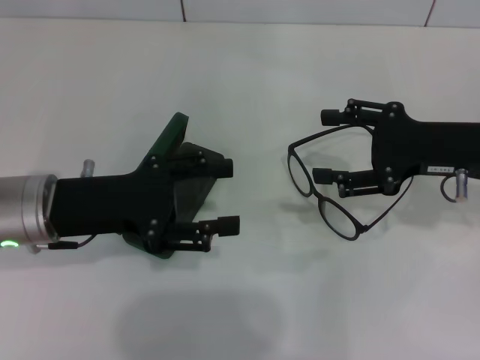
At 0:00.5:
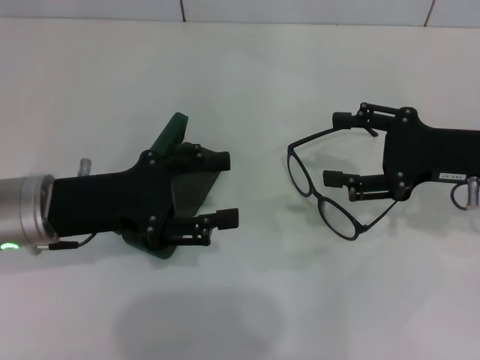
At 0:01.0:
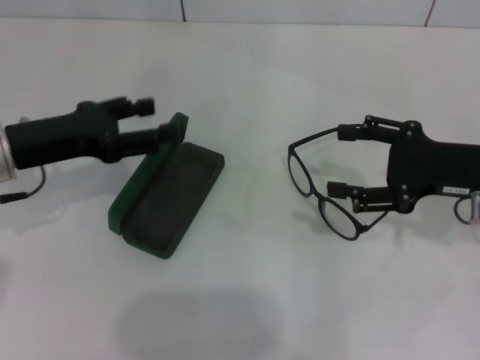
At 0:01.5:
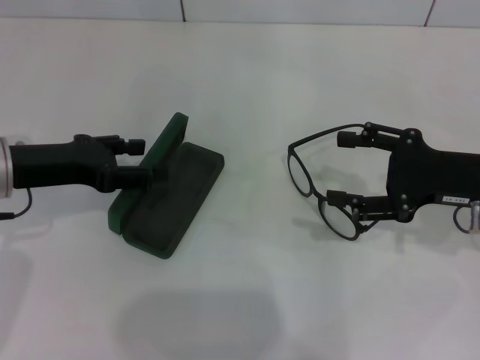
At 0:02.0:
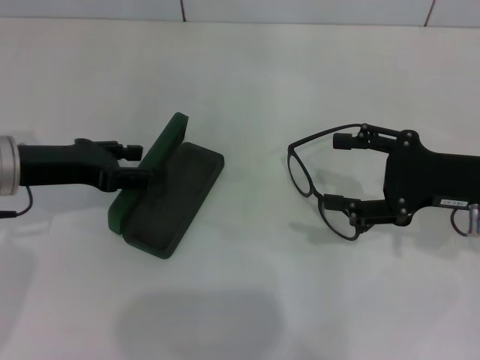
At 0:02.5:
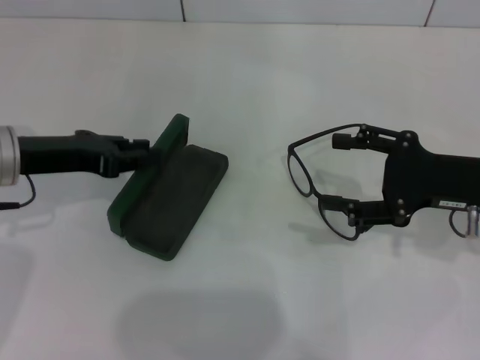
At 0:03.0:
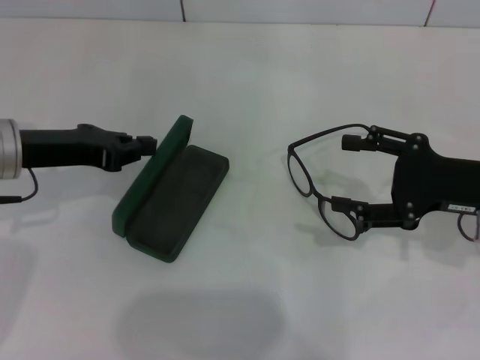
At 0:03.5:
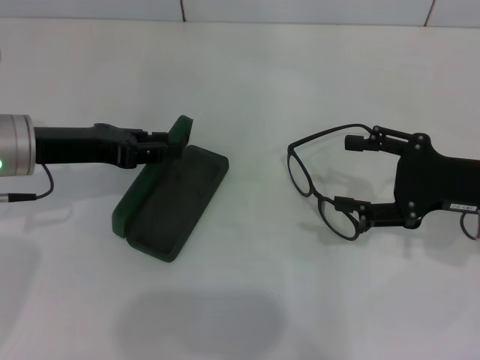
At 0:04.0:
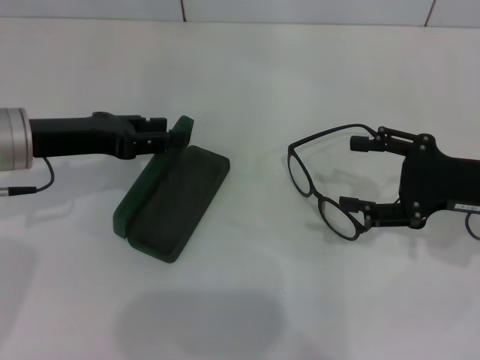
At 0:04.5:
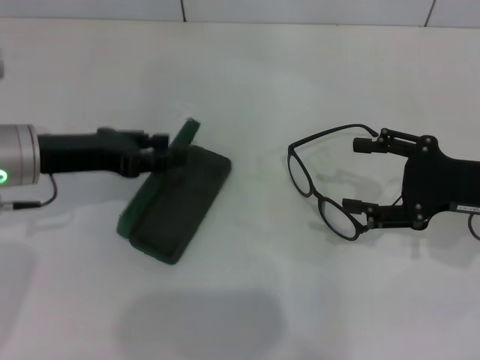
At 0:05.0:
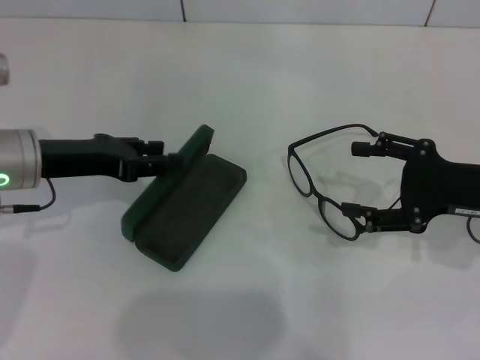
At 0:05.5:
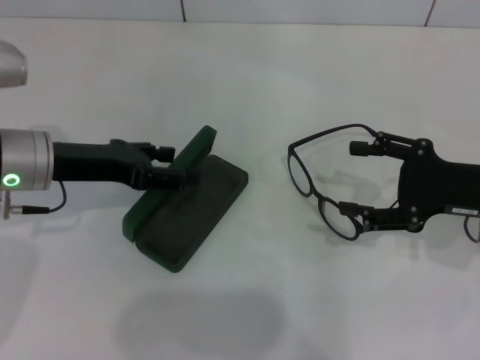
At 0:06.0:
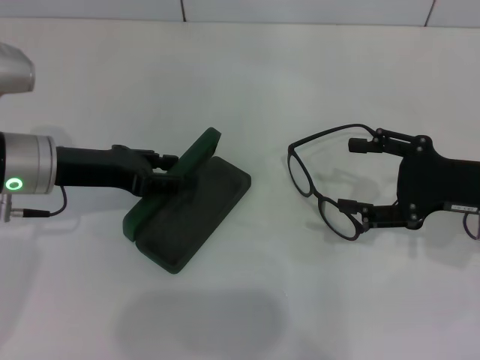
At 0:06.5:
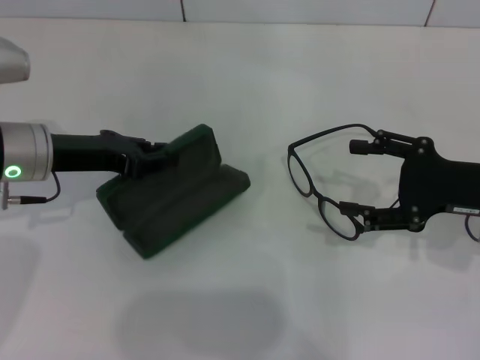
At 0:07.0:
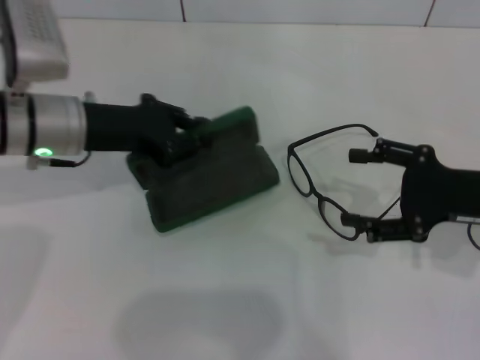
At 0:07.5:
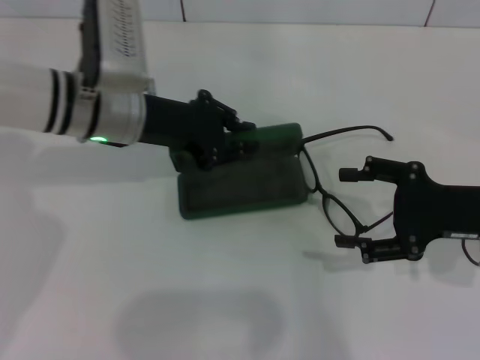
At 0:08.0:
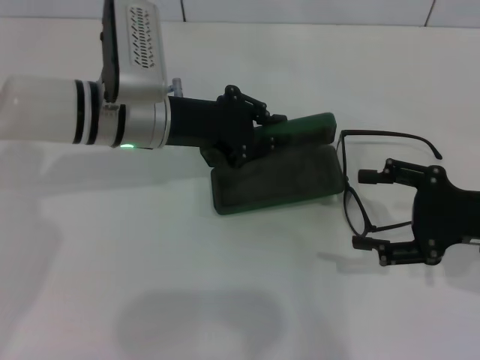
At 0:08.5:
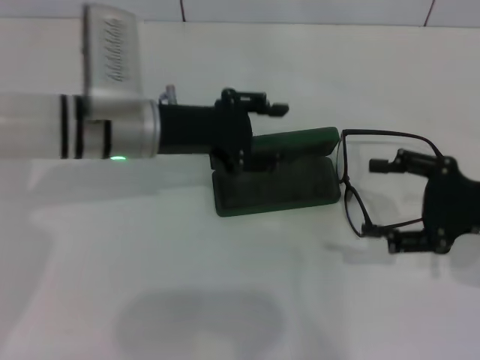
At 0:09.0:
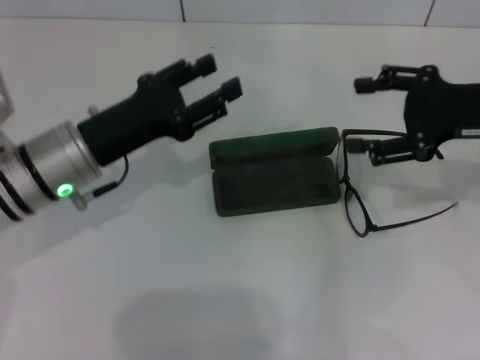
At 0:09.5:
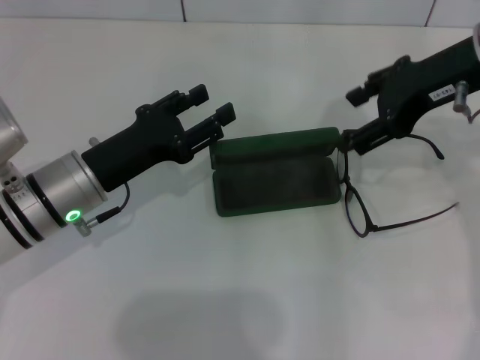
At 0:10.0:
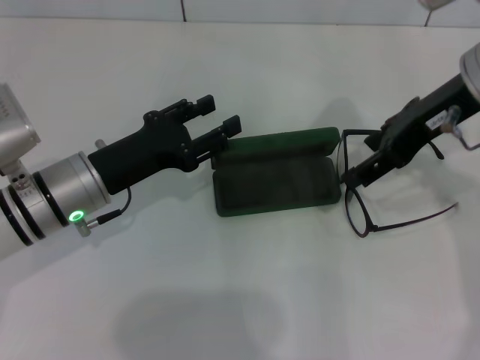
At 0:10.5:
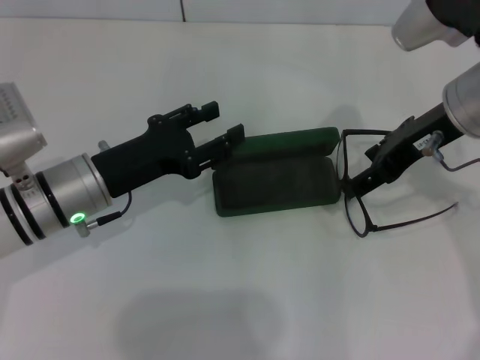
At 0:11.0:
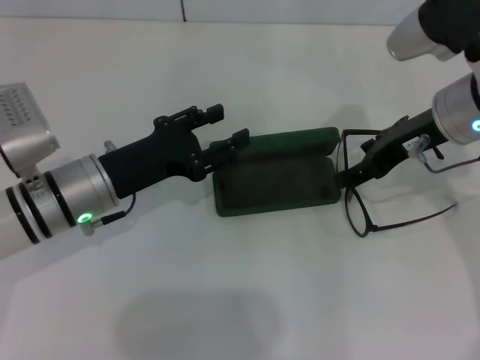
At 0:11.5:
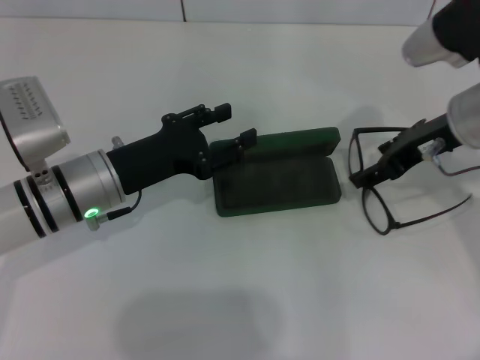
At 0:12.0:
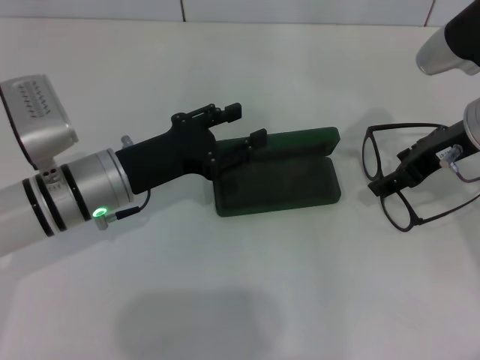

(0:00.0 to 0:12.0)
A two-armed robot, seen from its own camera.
Step, 0:00.0 - 0:06.0: Grab the glasses case with your left hand.
Step, 0:06.5 - 0:08.0: Place the glasses case in the center of the table with your left hand.
0:00.0 - 0:02.0: The left gripper moves roughly 5 cm.
0:02.0 - 0:04.0: The left gripper closes and opens again.
0:04.0 - 0:06.0: The left gripper opens its fingers.
0:06.0 - 0:08.0: The left gripper shifts some 10 cm to the right, and closes.
0:08.0 - 0:10.0: The left gripper goes some 10 cm backward and to the left, and opens, while the right gripper goes about 20 cm upward, to the left and forward.
0:10.0 - 0:12.0: The right gripper goes about 5 cm downward.

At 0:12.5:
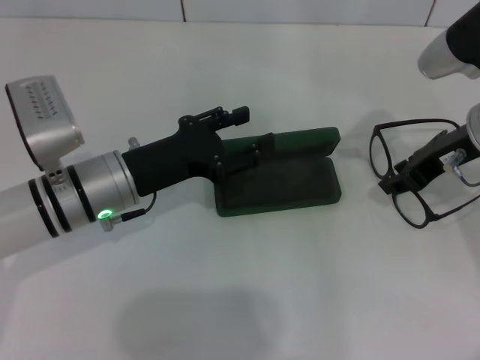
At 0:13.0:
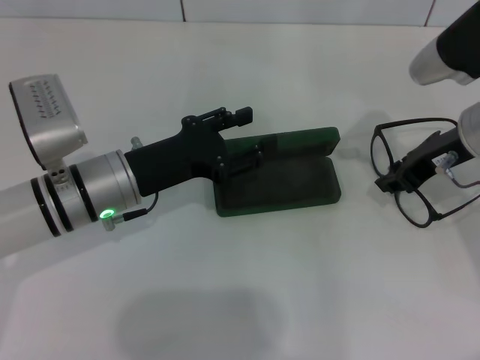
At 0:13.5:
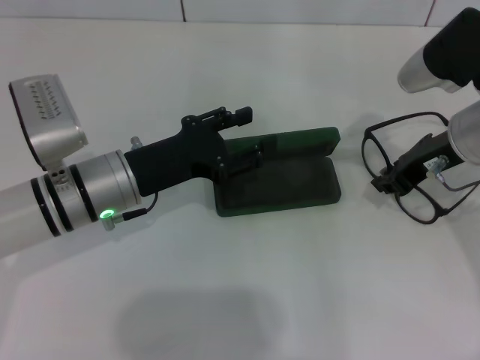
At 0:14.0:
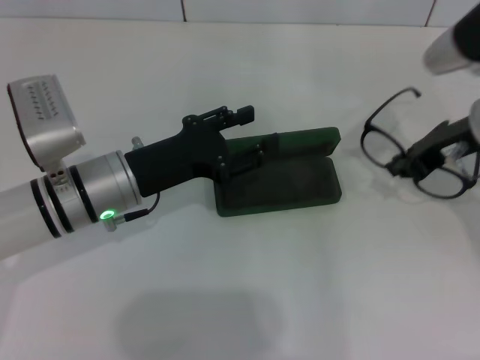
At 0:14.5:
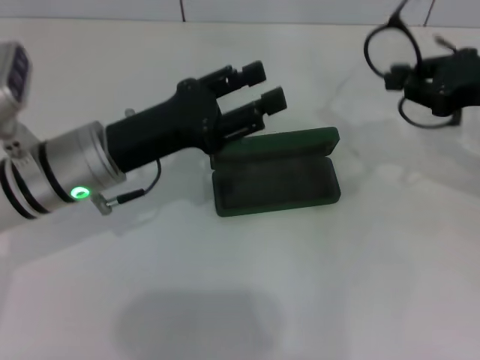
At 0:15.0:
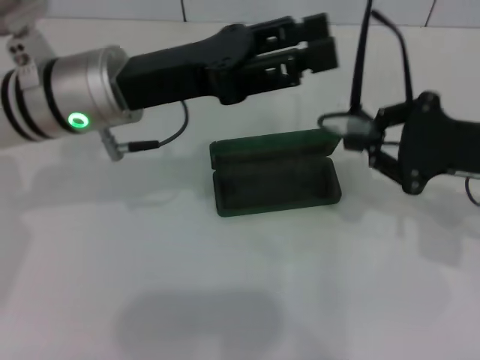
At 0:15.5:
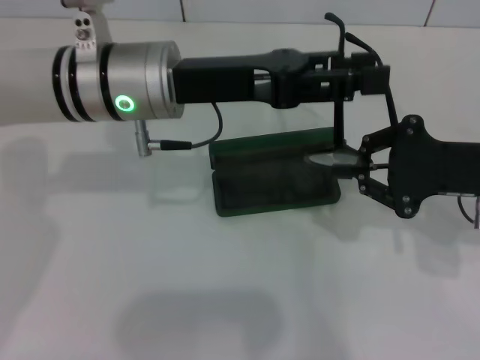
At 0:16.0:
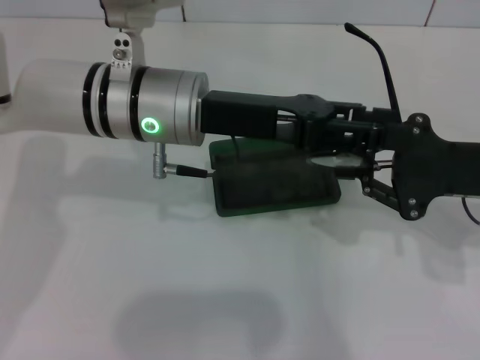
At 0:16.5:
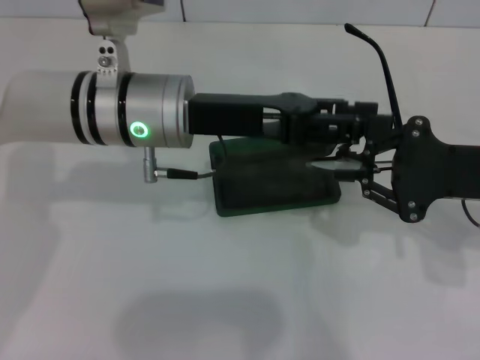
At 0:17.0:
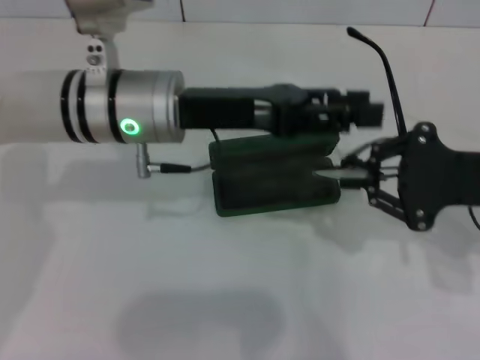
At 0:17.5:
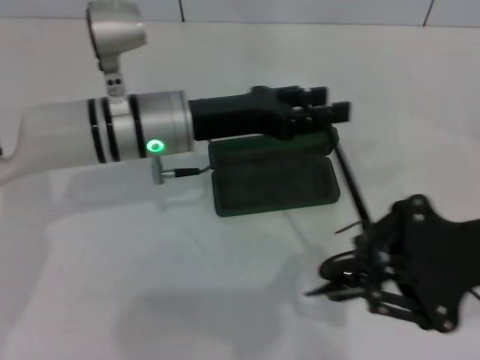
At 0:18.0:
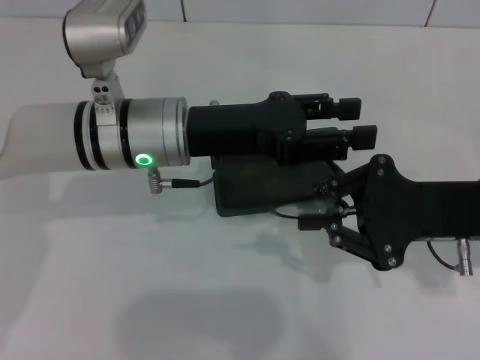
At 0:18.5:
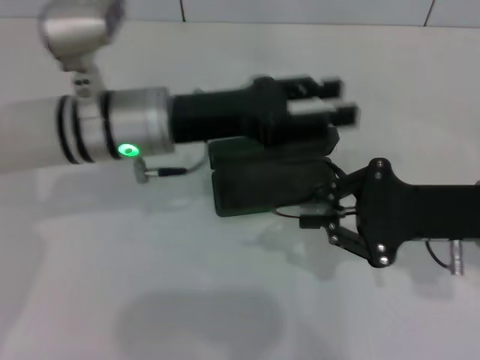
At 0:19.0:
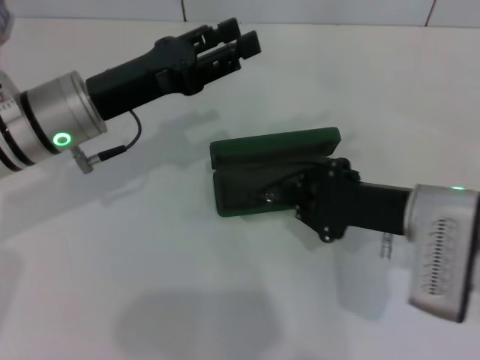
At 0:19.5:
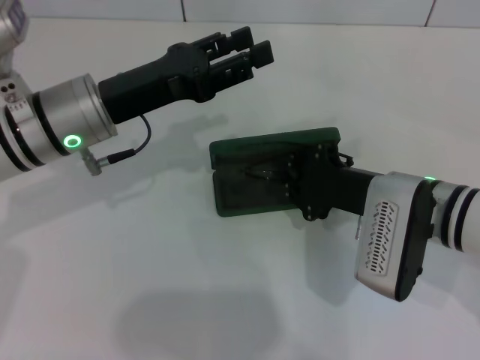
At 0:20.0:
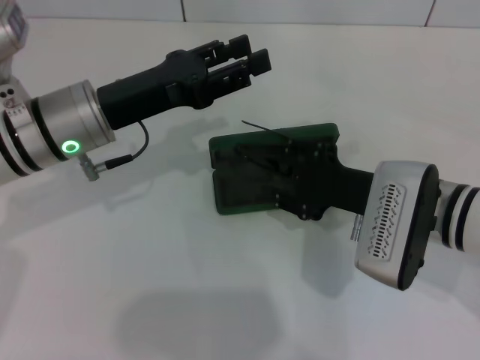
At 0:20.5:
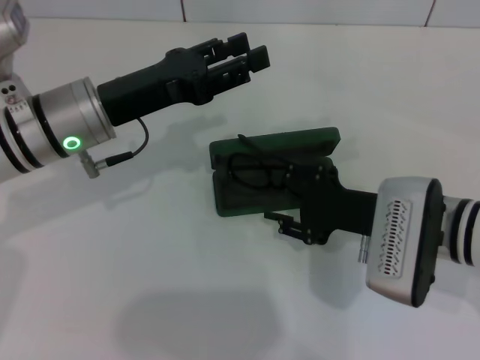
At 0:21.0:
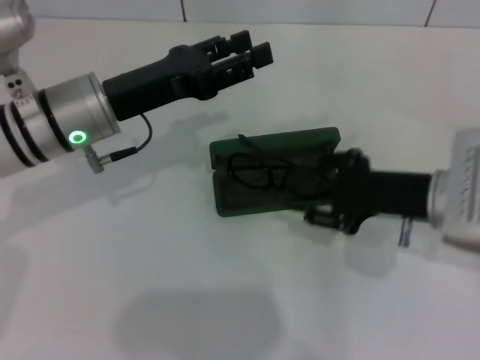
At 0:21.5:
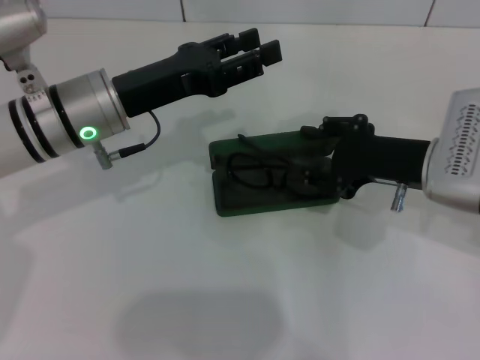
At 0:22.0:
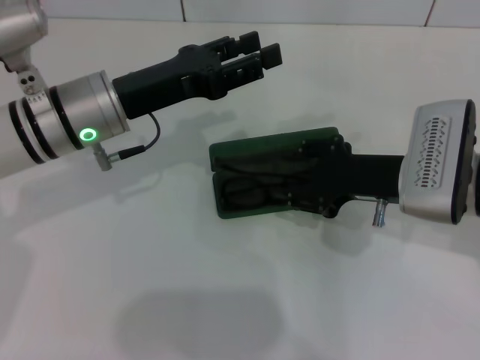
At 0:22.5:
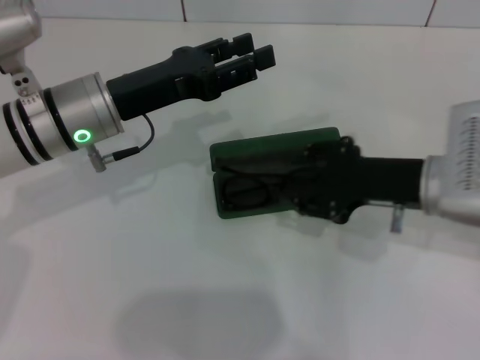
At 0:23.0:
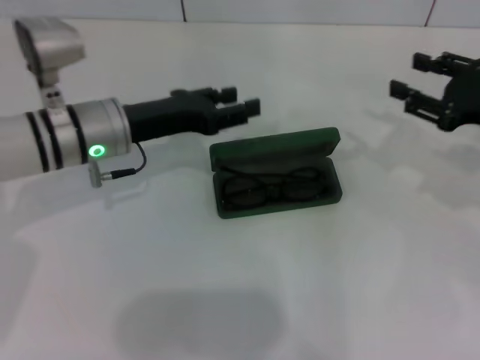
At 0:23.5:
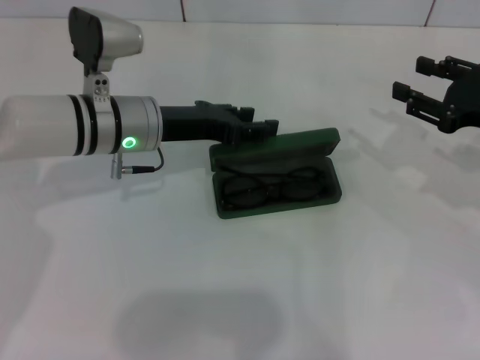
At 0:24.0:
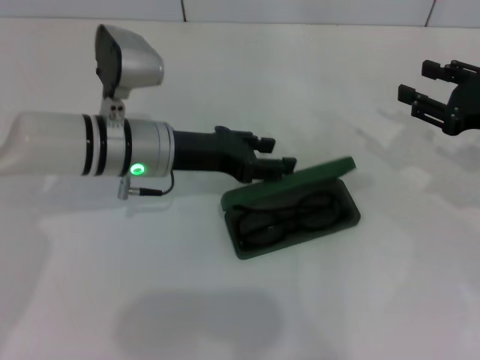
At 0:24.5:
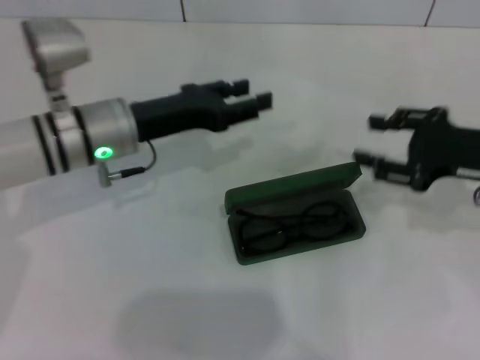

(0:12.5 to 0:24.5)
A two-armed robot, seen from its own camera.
Step, 0:14.0 - 0:18.0: Lift the glasses with your right hand.
Step, 0:18.5 - 0:22.0: Put the glasses into the case with your right hand.
0:12.5 - 0:14.5: The right gripper is displaced to the right by about 5 cm, and closes.
0:14.5 - 0:16.5: The right gripper ends up about 5 cm from where it was, while the left gripper is displaced to the right by approximately 5 cm.
0:18.5 - 0:20.5: The two grippers go roughly 5 cm to the left. The right gripper opens up.
0:20.5 - 0:22.5: The right gripper changes place by some 5 cm.
0:22.5 - 0:24.5: The right gripper moves to the right, approximately 10 cm.

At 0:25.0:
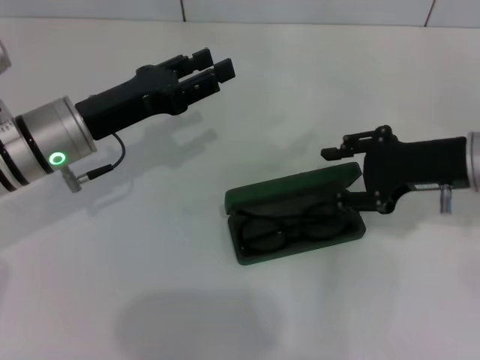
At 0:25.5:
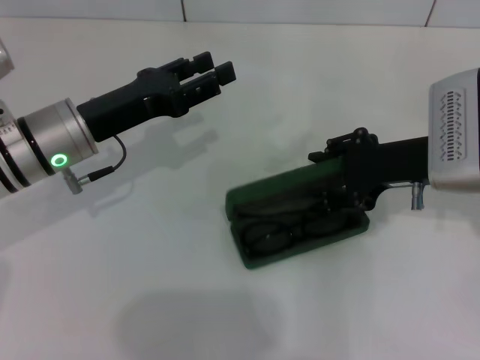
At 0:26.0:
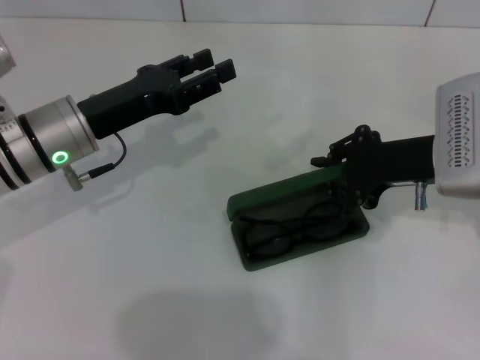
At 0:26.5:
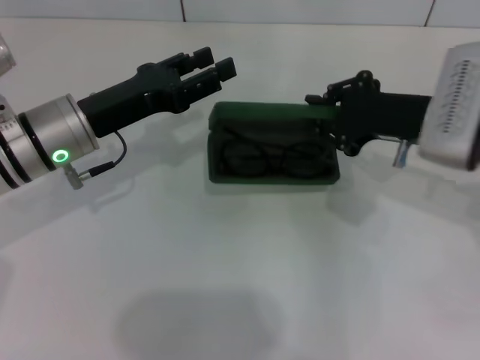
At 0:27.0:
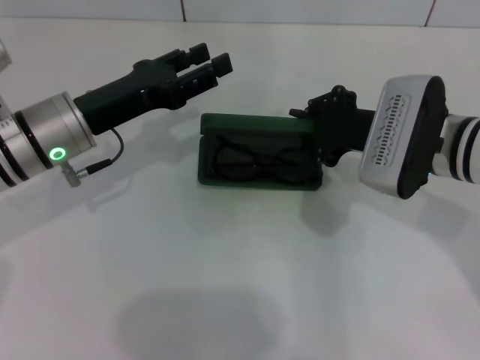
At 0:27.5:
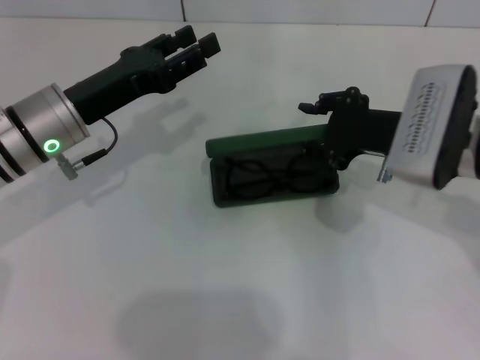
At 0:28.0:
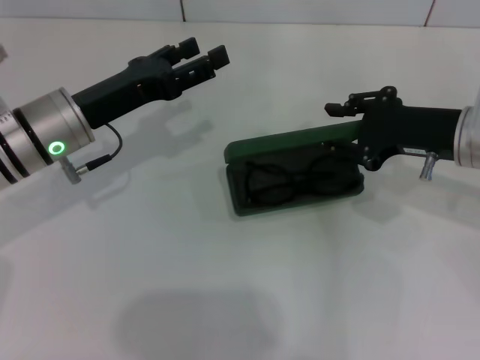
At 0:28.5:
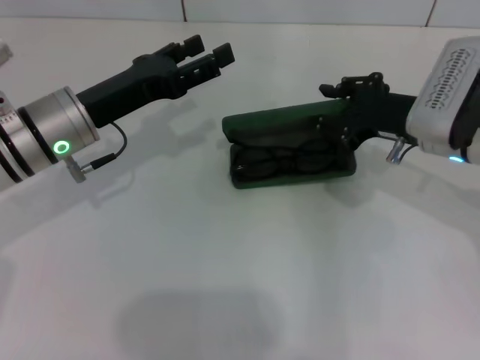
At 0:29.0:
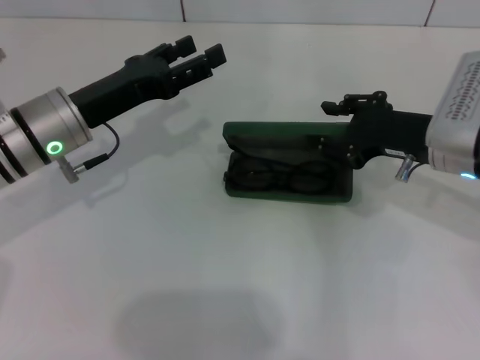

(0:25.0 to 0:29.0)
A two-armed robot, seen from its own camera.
0:25.0 - 0:27.0: The right gripper heads to the left, covering approximately 5 cm, and closes.
0:27.0 - 0:29.0: The right gripper opens up.
